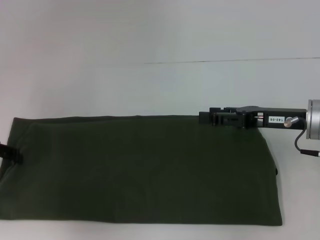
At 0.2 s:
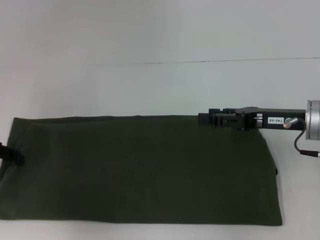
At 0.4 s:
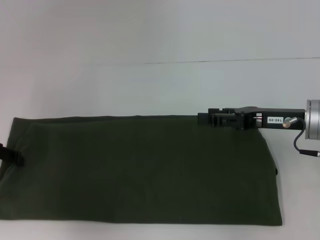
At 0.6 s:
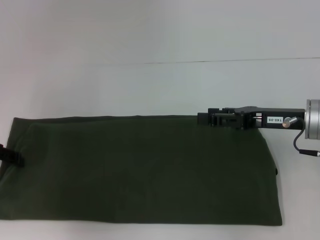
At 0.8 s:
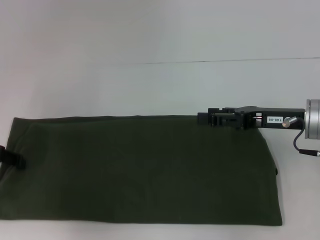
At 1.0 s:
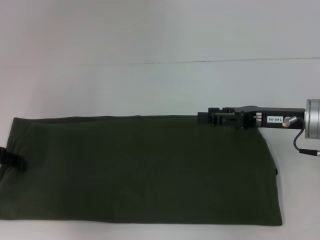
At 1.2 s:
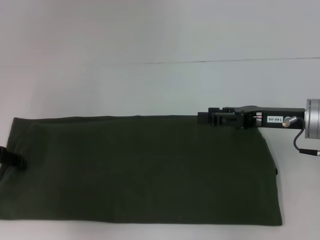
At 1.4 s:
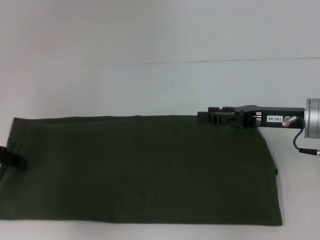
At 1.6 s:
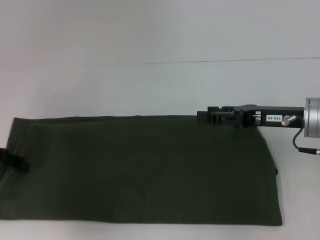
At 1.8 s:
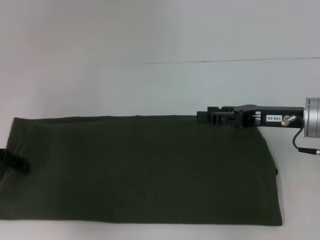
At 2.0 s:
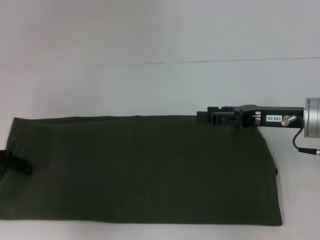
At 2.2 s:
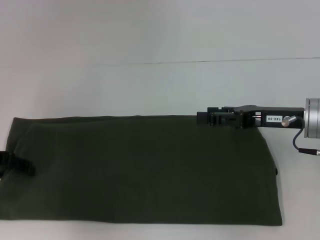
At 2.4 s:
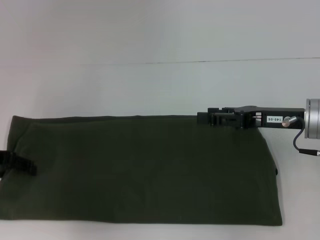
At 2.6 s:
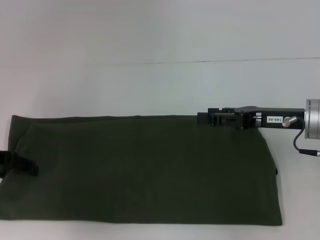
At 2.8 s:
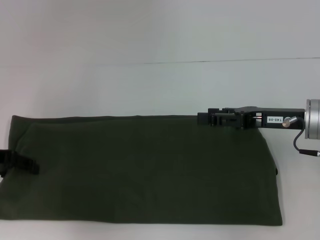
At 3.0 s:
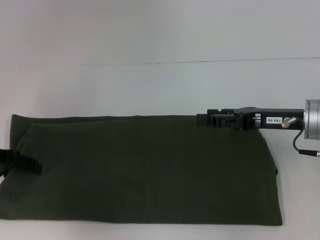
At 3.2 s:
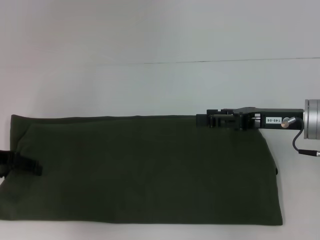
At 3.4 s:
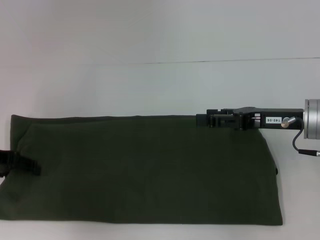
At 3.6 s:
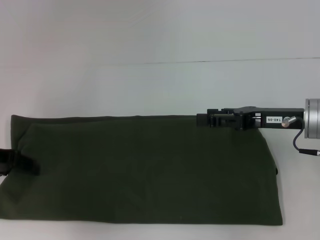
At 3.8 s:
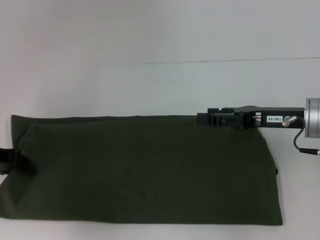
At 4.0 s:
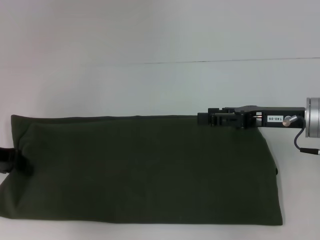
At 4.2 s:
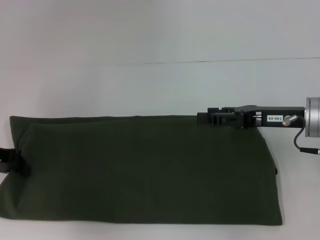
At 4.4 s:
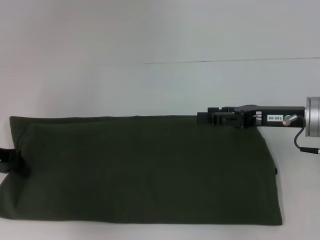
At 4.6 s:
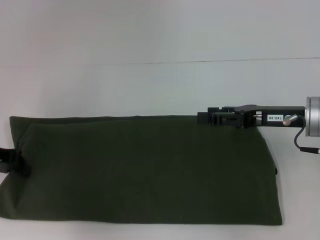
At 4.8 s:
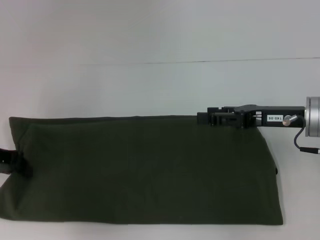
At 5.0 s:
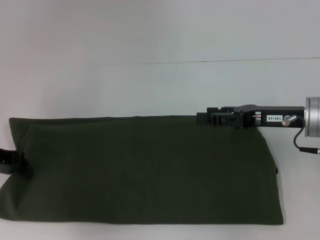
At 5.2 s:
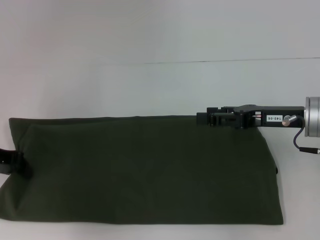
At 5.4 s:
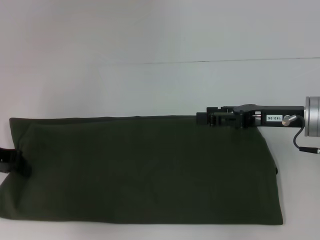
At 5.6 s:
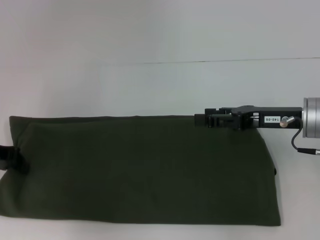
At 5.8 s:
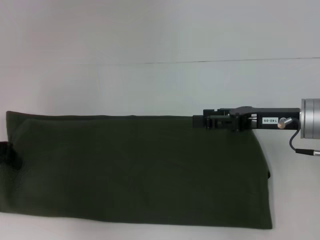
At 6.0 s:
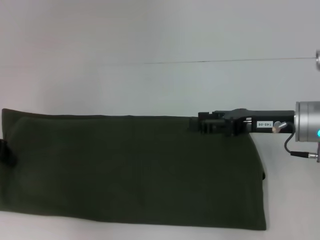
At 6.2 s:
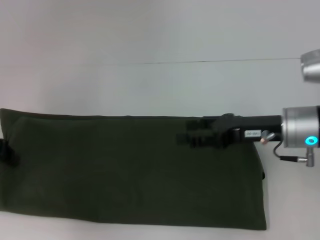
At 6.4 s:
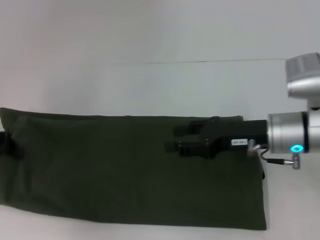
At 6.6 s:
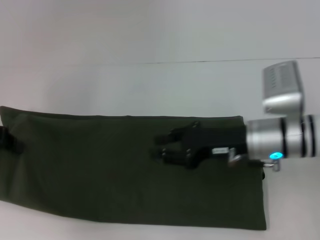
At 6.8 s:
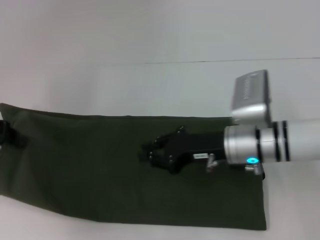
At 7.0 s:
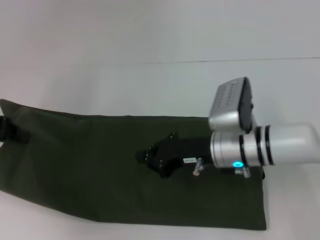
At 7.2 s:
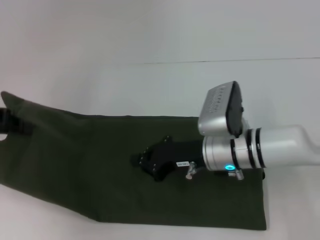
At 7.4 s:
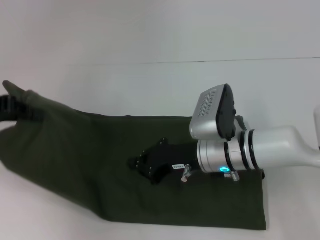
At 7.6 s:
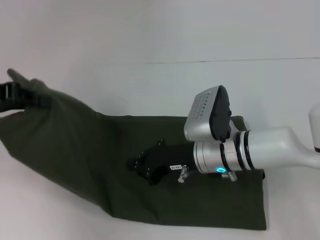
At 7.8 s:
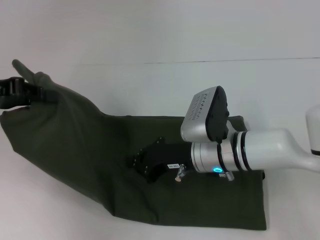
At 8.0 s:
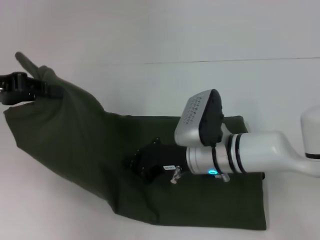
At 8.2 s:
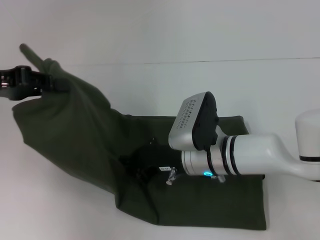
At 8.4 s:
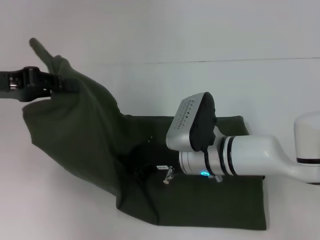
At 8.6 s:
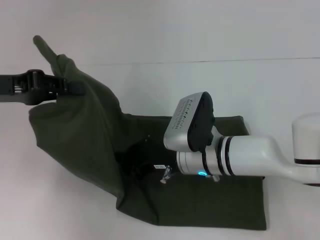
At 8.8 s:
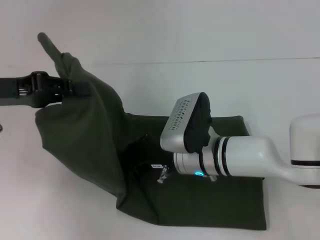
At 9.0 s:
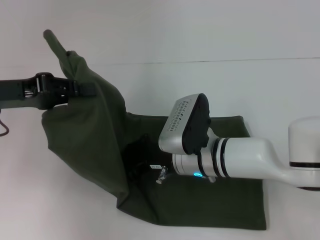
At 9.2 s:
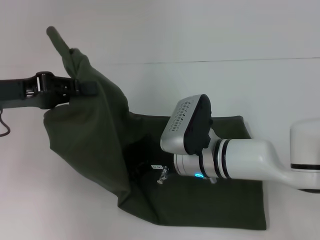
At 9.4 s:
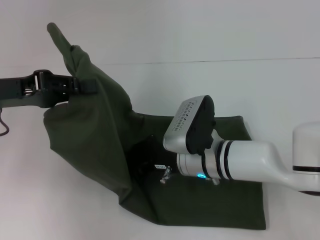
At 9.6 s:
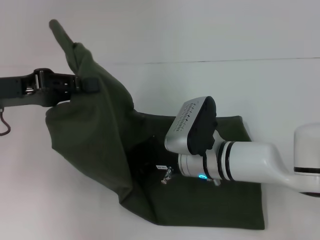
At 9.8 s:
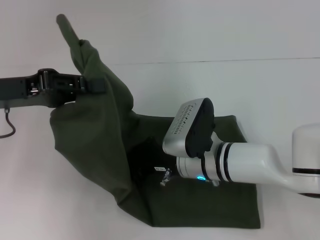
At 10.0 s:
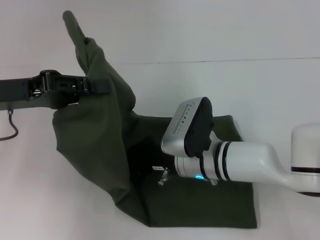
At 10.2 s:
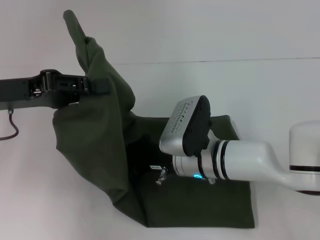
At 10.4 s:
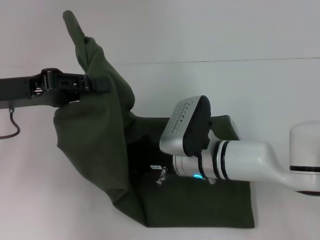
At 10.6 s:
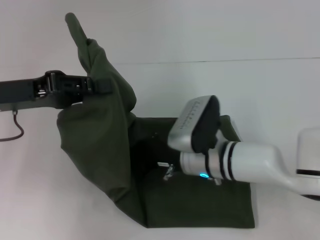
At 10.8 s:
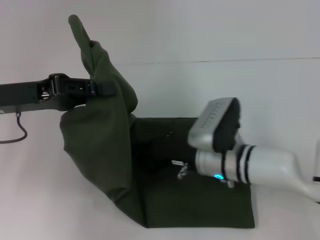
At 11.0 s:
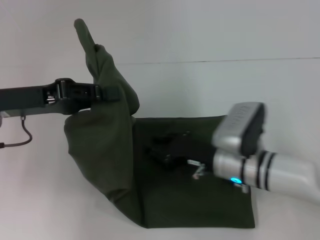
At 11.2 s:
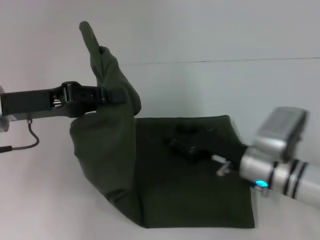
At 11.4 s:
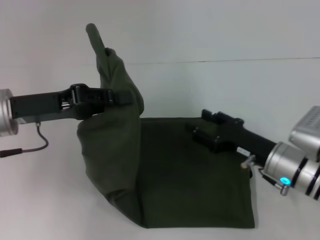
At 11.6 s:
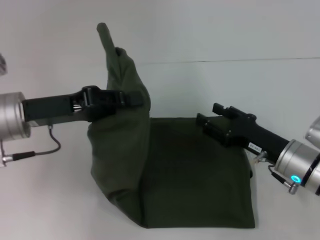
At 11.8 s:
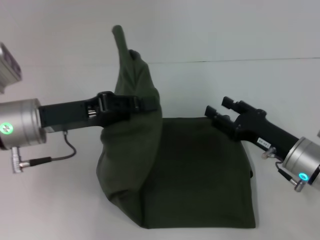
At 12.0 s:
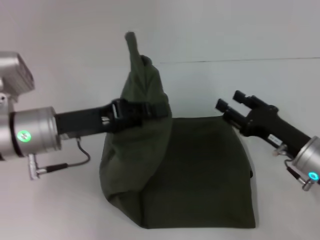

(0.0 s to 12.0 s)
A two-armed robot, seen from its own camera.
0.0 s - 3.0 s: The grippers stay close to where they were, moving slightly.
4.4 s - 6.0 s: The grippers stay close to where they were, moving slightly.
6.0 s - 7.6 s: The left gripper goes about 5 cm upward; the right gripper heads to the left and downward, covering about 15 cm, and closes.
7.6 s - 9.0 s: The left gripper moves roughly 5 cm.
9.0 s - 10.4 s: The grippers move only a little.
10.4 s - 12.0 s: The left gripper goes about 10 cm to the right and downward; the right gripper shifts about 15 cm to the right, and opens its fingers.

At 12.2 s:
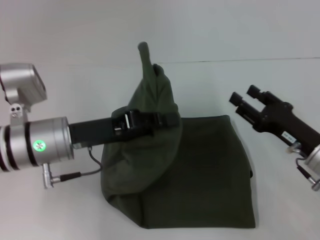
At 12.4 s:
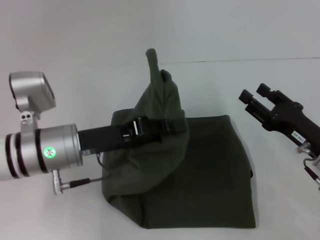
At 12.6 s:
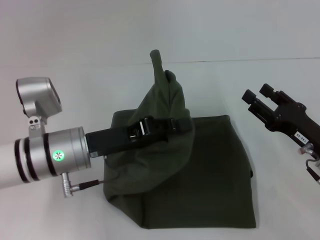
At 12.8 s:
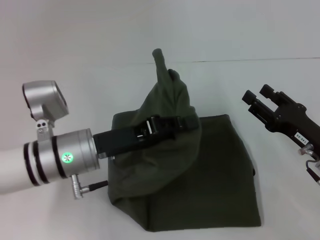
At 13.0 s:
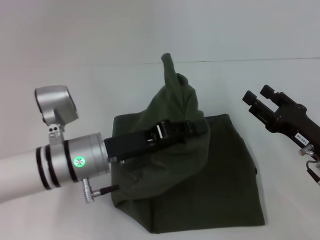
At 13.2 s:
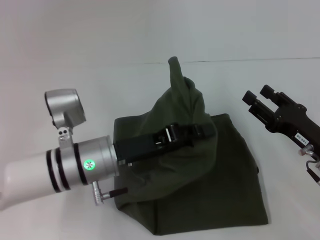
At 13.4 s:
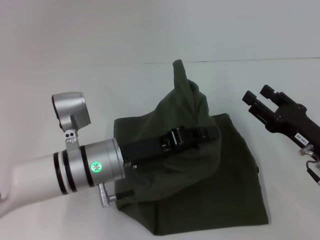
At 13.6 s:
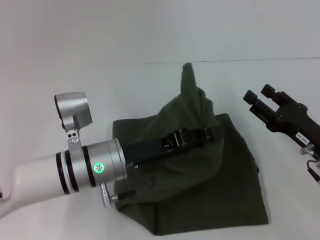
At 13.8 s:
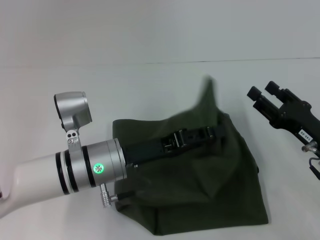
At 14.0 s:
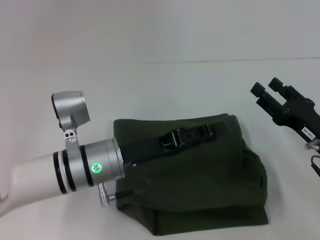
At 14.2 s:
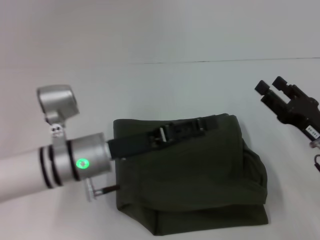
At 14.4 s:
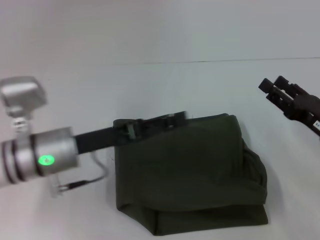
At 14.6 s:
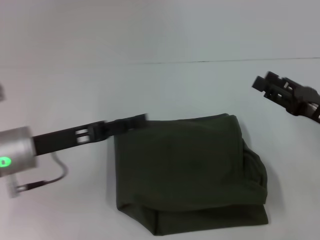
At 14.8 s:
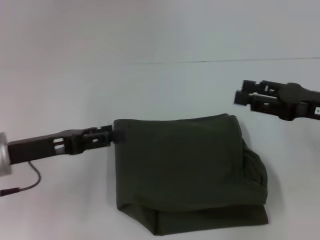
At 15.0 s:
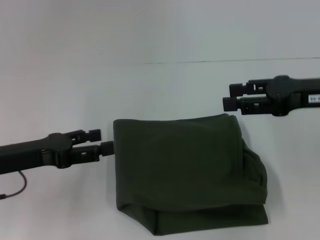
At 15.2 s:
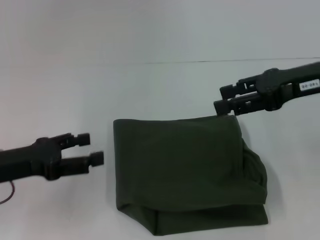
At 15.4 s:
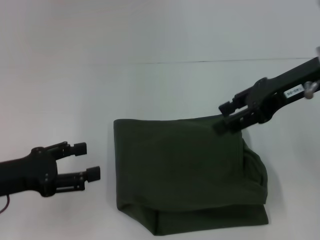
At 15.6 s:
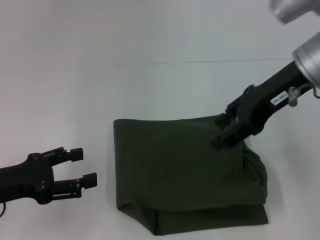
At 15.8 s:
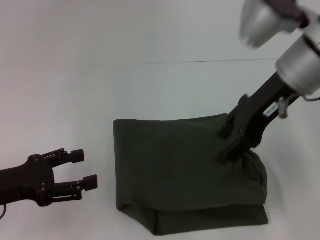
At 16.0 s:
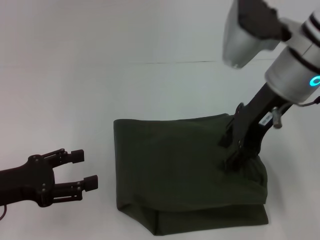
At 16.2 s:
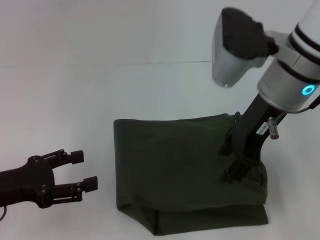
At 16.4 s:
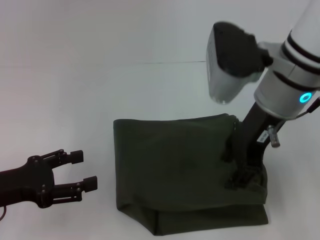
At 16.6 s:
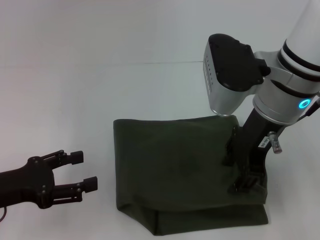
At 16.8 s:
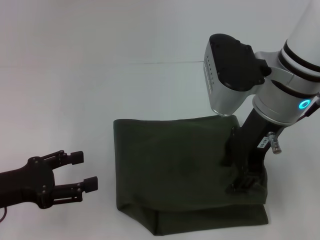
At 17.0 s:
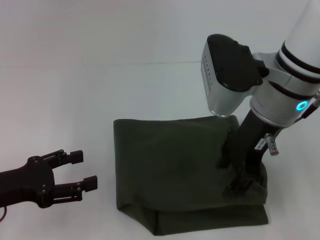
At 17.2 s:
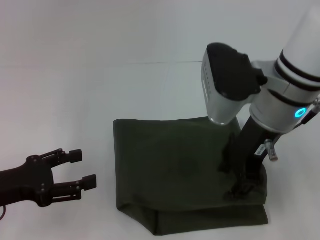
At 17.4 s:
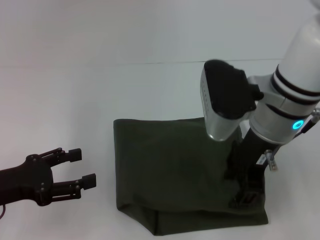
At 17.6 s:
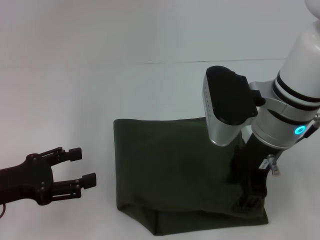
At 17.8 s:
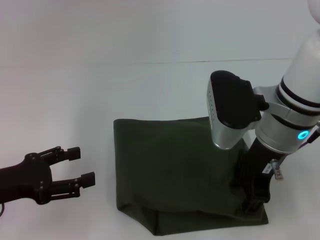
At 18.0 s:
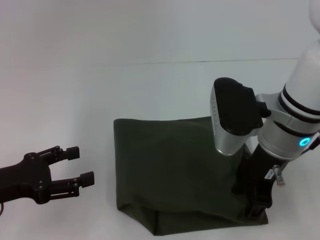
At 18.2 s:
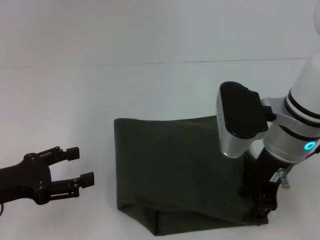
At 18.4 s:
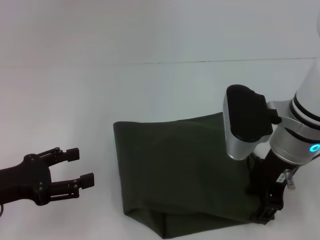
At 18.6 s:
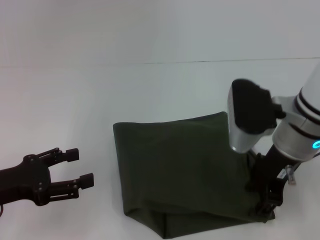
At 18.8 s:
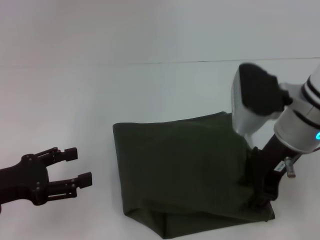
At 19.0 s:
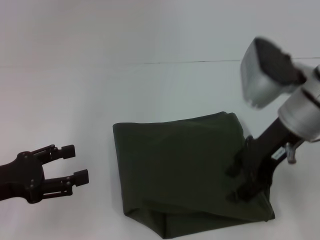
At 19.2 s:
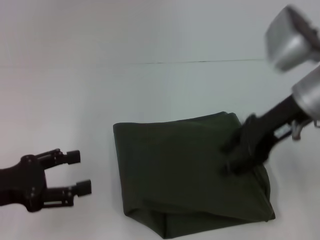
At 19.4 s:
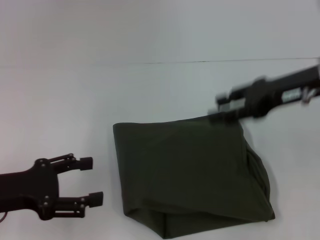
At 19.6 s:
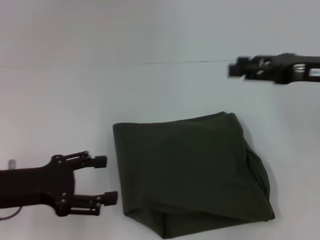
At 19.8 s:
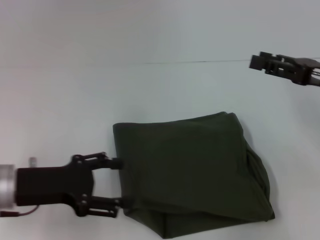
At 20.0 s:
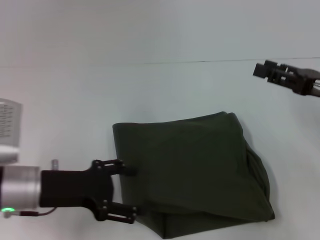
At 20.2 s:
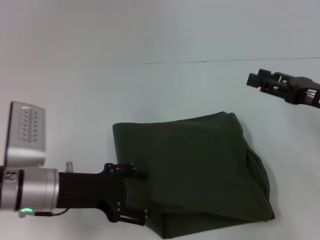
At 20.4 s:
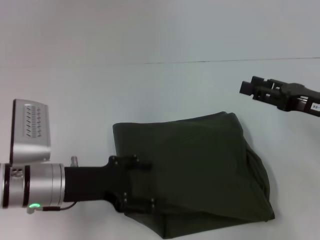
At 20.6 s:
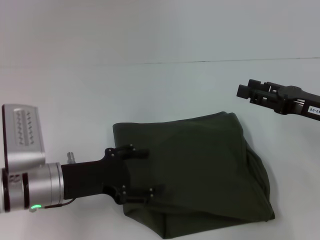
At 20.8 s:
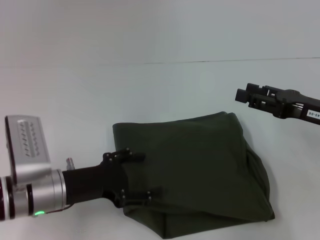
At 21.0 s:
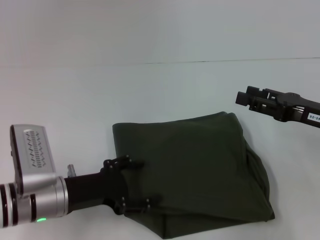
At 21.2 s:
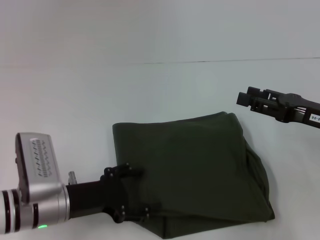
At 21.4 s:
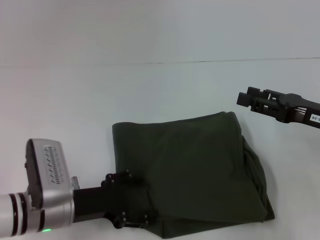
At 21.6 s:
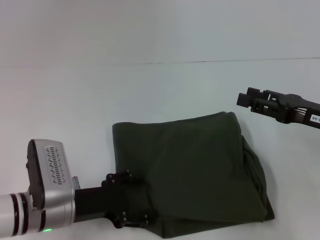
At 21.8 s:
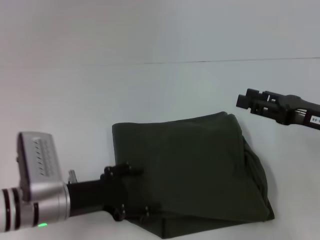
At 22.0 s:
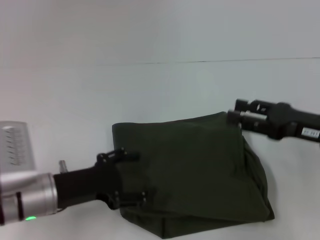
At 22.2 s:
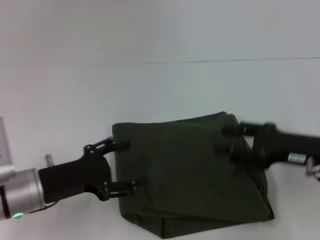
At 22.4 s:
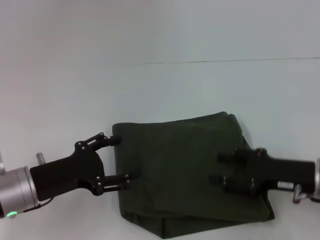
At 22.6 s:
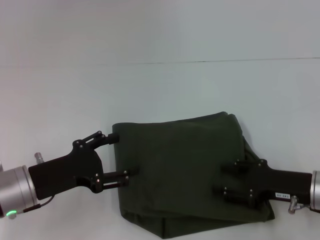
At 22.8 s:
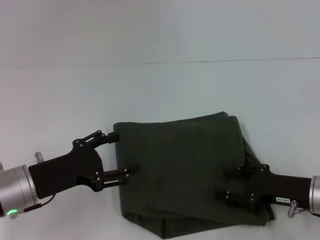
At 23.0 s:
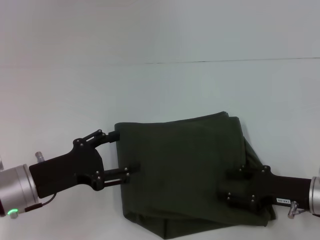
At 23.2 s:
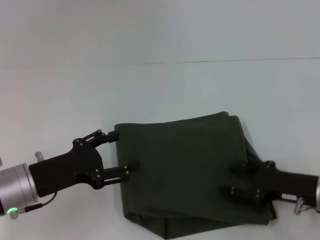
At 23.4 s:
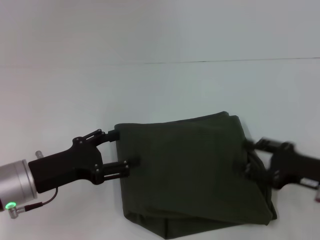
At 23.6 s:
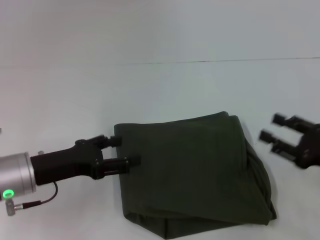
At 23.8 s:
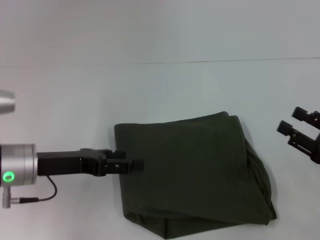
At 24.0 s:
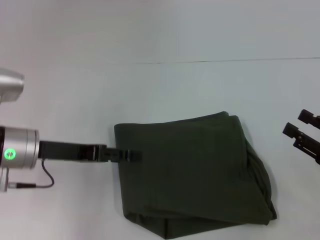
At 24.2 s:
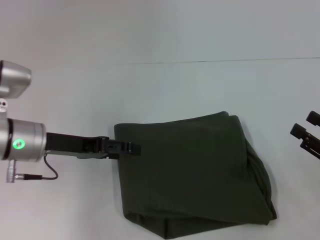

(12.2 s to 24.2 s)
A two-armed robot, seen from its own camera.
12.2 s - 13.8 s: The left gripper moves to the right, some 5 cm.
13.8 s - 15.2 s: The left gripper heads to the left, covering about 15 cm, and opens up, while the right gripper heads upward, covering some 20 cm.
15.2 s - 16.6 s: The right gripper goes some 10 cm to the left.
16.6 s - 18.2 s: The right gripper goes about 5 cm downward.
18.2 s - 19.8 s: The right gripper moves to the right, approximately 15 cm, while the left gripper heads to the right, covering approximately 5 cm.
19.8 s - 21.2 s: The left gripper is displaced downward by some 5 cm. Meanwhile the right gripper shifts by roughly 5 cm.
21.2 s - 22.6 s: The right gripper heads downward, covering roughly 10 cm.
22.6 s - 24.2 s: The left gripper is displaced forward by about 5 cm. Meanwhile the right gripper is displaced to the right by some 10 cm.
